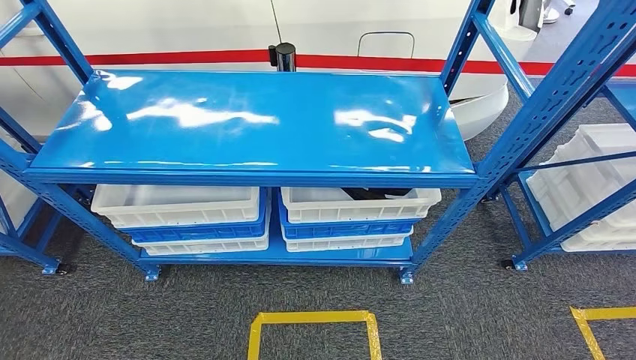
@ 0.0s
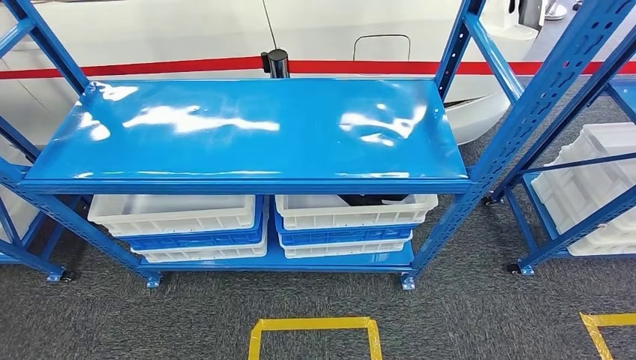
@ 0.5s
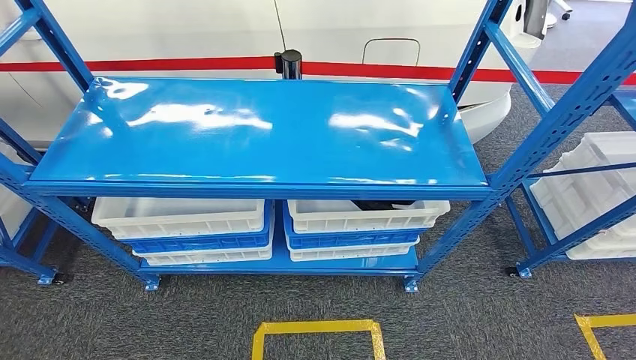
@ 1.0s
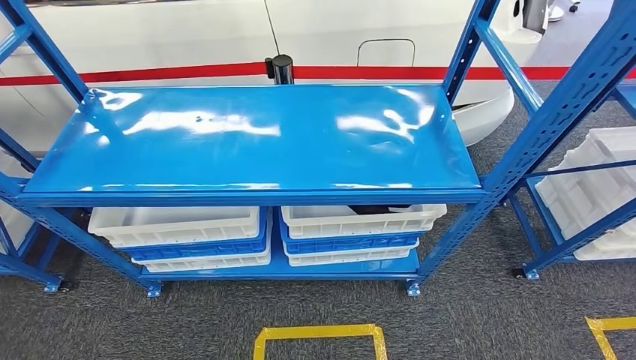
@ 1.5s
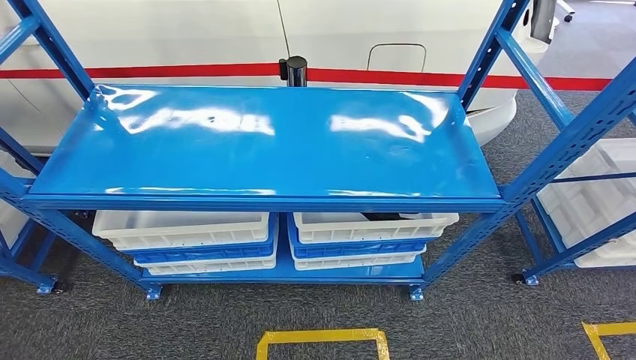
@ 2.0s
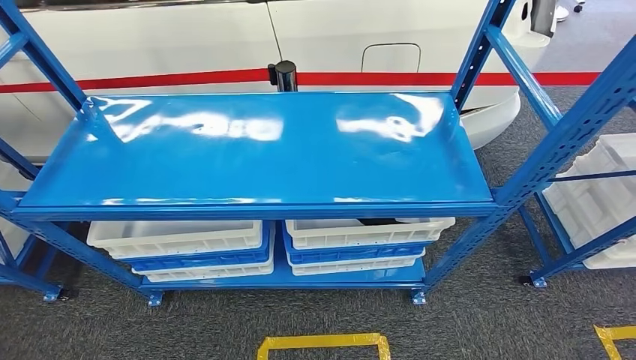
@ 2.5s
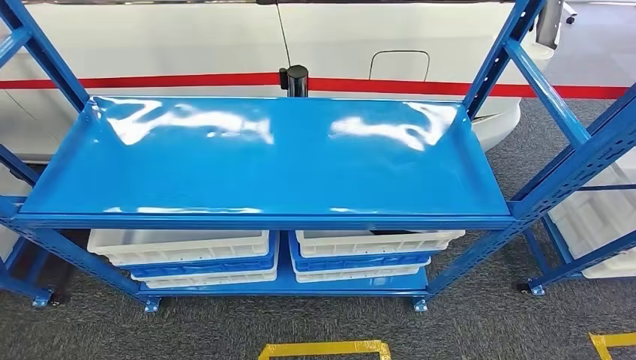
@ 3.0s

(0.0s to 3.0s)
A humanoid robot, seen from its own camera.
Step, 0.0s - 2.5s: Return to the initial position at the shelf.
